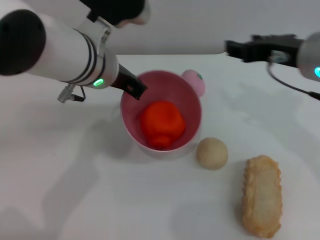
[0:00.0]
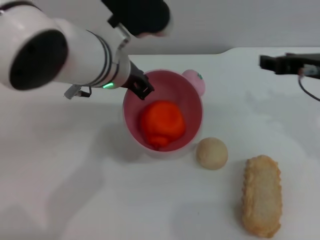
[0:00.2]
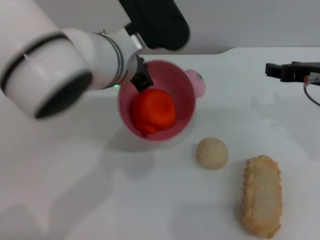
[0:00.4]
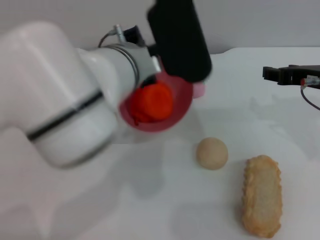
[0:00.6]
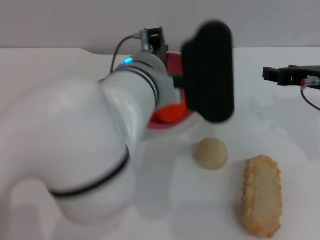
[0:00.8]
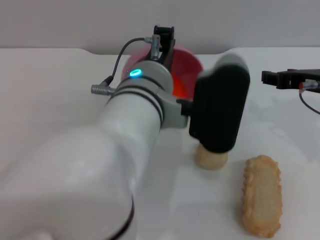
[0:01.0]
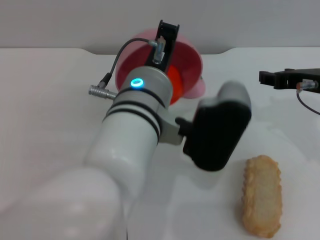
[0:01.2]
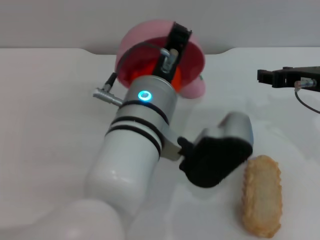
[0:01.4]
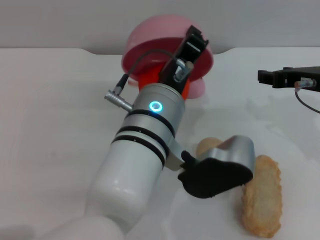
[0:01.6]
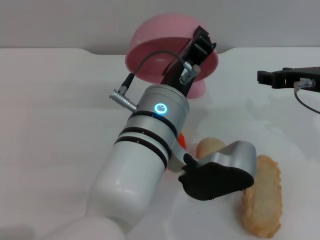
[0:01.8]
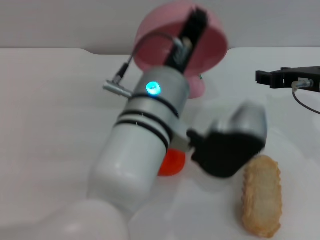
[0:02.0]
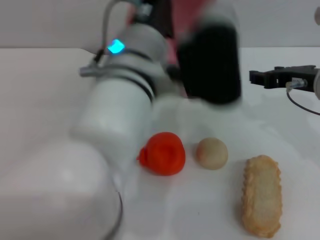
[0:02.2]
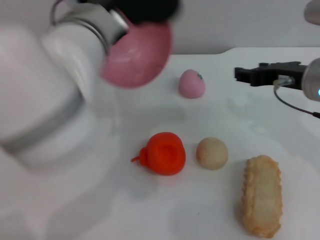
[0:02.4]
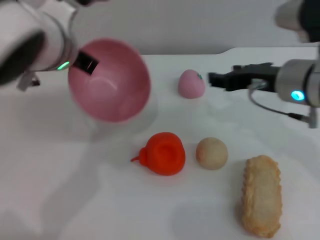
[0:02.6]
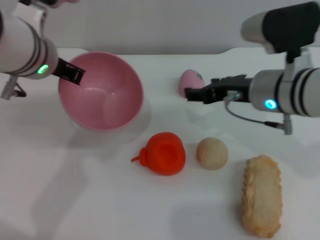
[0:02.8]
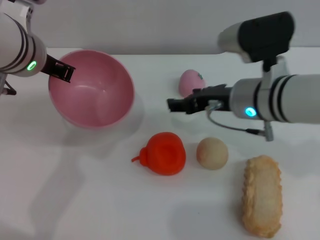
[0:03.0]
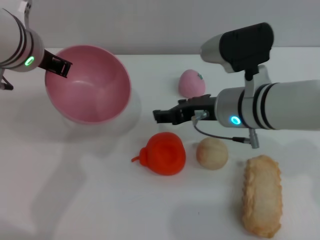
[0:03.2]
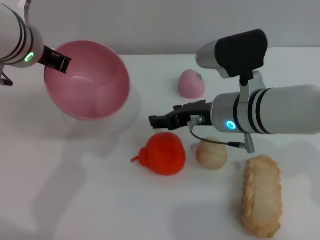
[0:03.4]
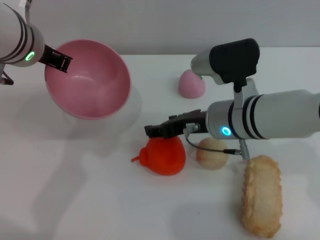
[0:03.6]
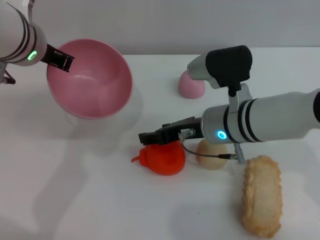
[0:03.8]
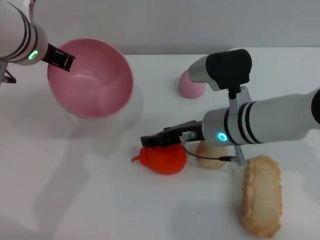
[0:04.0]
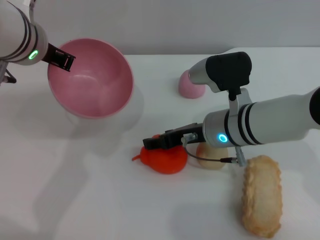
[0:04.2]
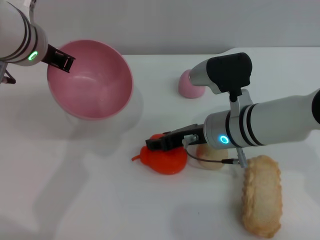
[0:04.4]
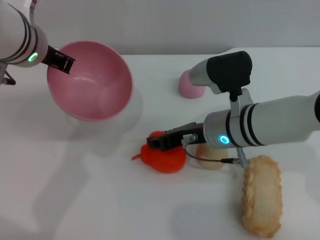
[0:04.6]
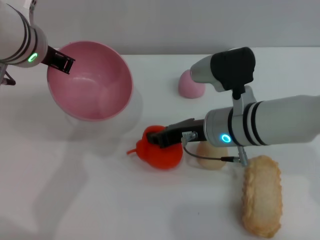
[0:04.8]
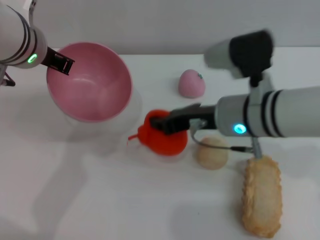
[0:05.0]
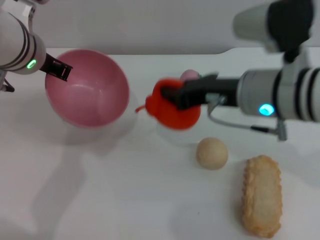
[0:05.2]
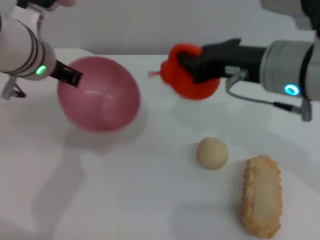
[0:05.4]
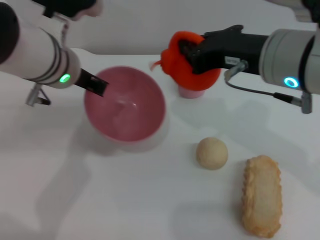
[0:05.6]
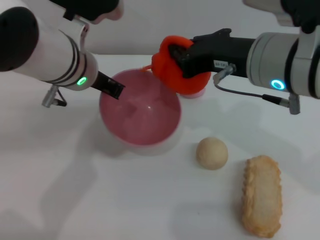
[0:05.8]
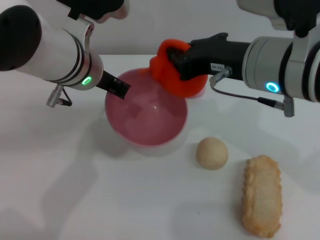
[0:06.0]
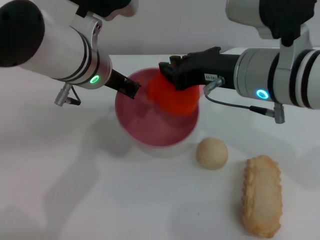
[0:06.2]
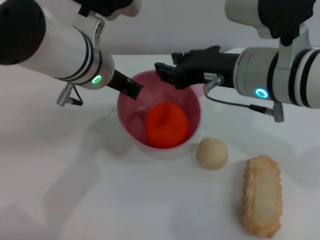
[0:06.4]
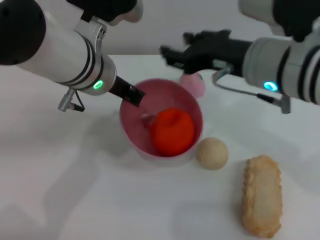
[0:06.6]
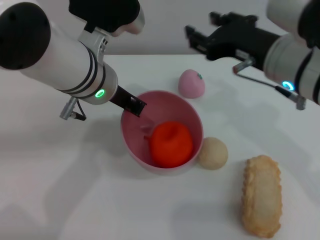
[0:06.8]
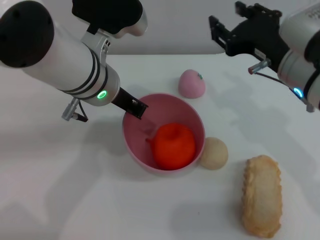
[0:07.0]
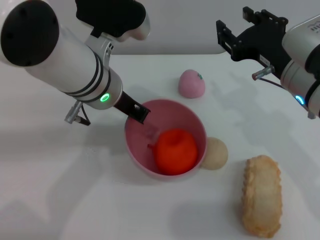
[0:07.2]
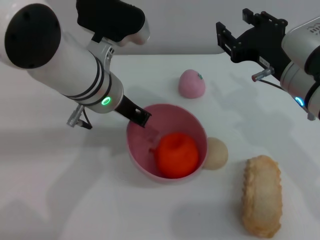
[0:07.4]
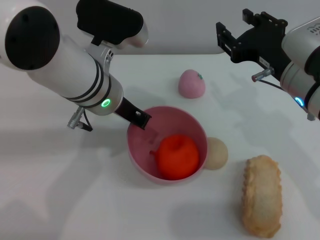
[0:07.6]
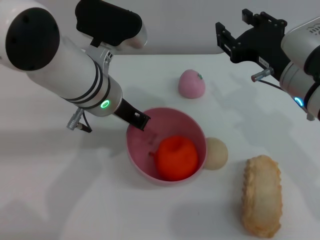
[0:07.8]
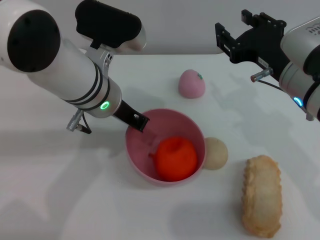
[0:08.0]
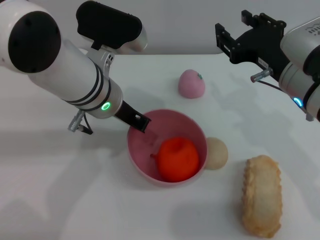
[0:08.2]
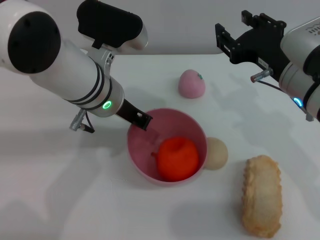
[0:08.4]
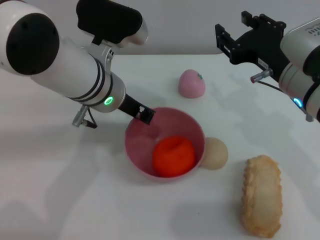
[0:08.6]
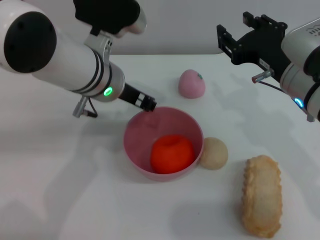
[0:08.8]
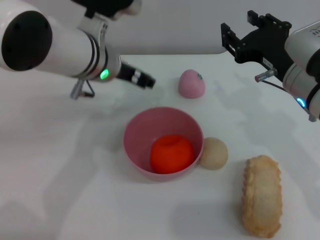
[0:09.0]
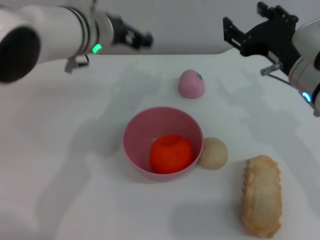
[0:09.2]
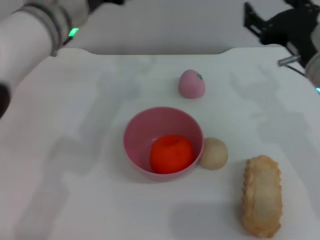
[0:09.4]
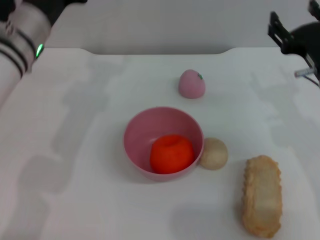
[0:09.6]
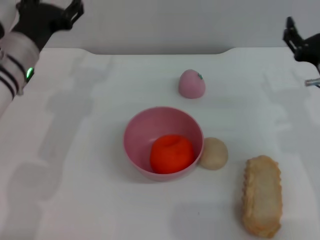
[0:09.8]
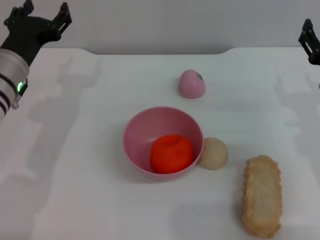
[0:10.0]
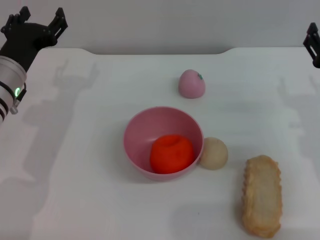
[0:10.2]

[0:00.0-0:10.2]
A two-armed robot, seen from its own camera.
Task of the whole recording: put the orange into the pink bowl and pour it out repeatedly.
Step, 0:00.0 to 0:01.8: Pour the orange out of the bowl.
Step, 0:02.0 to 0:05.0: Pick up the orange with the right gripper.
Step, 0:05.2 to 0:06.4: Place the orange into the bowl.
Step, 0:06.6 to 0:08.8: Place the bowl on the table.
0:00.0 to 0:01.4: The left gripper heads backward and to the right, covering approximately 10 cm, while the right gripper changes place by approximately 5 cm.
0:01.4 to 0:03.0: The right gripper moves to the left, about 10 cm, while the left gripper travels to the left and forward by roughly 15 cm.
0:03.0 to 0:04.4: The right gripper moves downward, some 5 cm.
0:04.4 to 0:05.8: The left gripper ends up approximately 5 cm from where it was; the right gripper heads upward, covering roughly 15 cm, and closes its fingers.
0:05.8 to 0:07.2: The right gripper is displaced downward by about 5 cm, and opens.
0:07.2 to 0:08.8: There are only small adjustments of the grippers.
0:08.8 to 0:10.2: The right gripper travels to the right and downward by about 10 cm; the left gripper is displaced to the left and downward by about 15 cm, and opens.

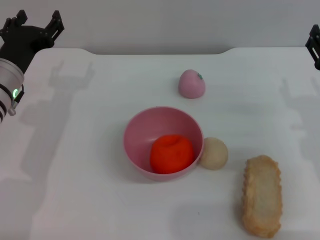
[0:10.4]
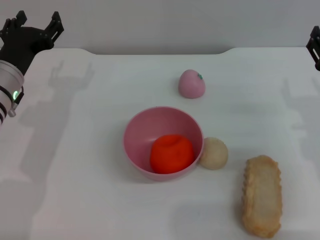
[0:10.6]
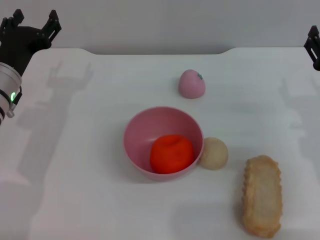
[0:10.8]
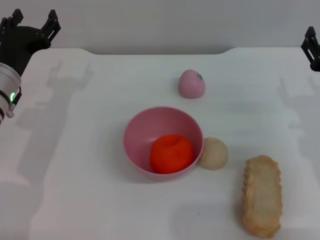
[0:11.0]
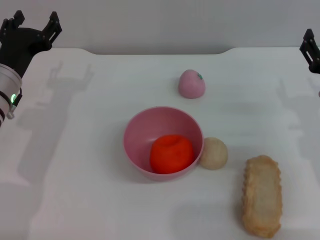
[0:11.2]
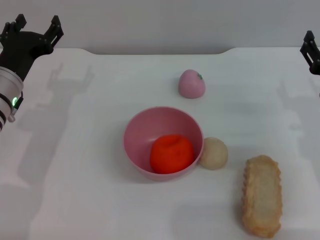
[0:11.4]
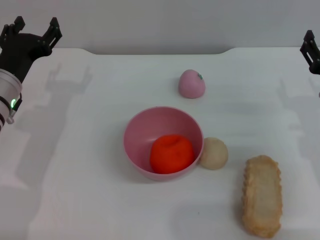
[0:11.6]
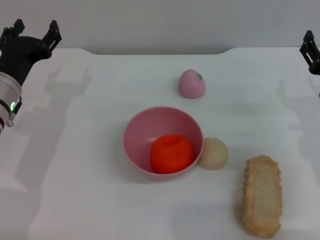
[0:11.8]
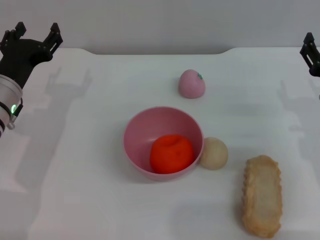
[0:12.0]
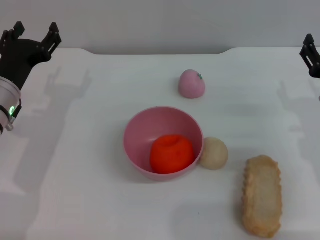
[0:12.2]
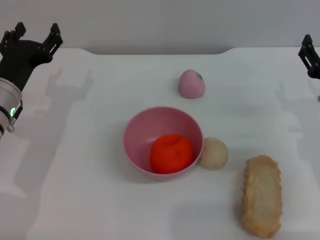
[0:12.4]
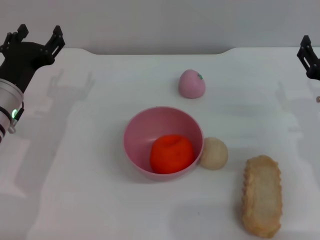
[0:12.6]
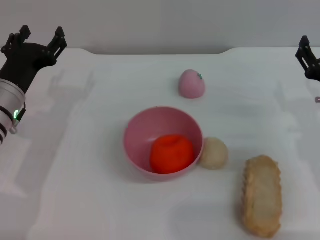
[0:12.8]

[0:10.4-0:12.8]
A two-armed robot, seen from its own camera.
Task of the whole recording: put the orange into the pink bowl and pour it out repeatedly.
0:10.4 to 0:12.8: The grippers move only a little.
